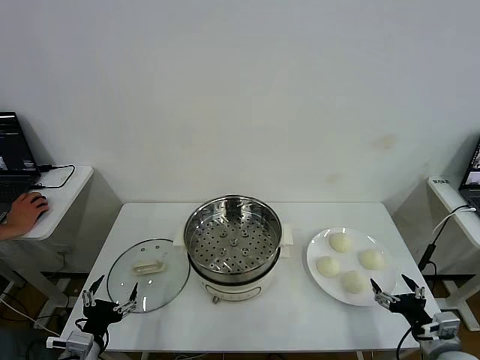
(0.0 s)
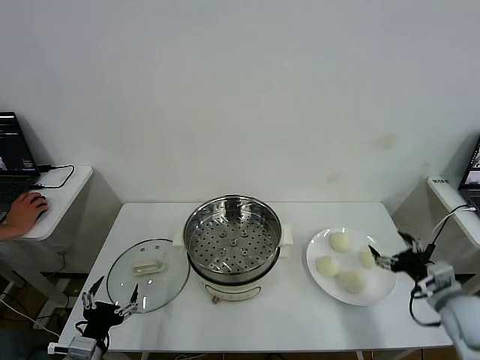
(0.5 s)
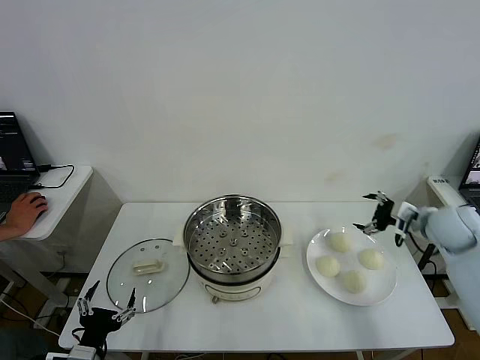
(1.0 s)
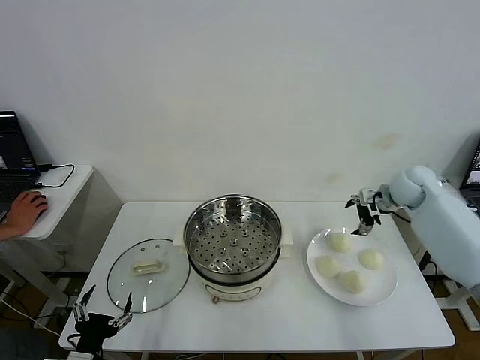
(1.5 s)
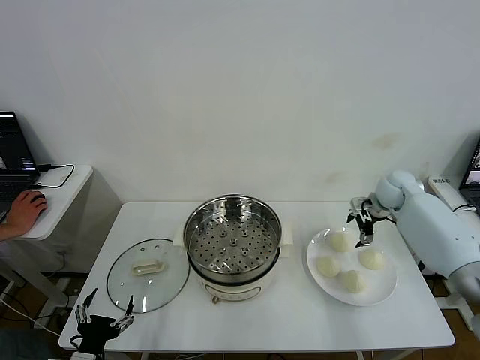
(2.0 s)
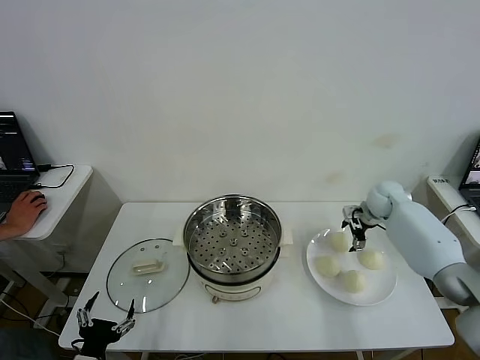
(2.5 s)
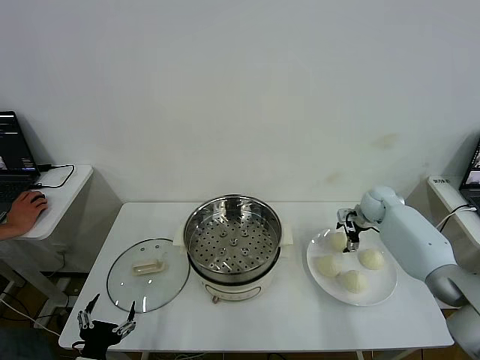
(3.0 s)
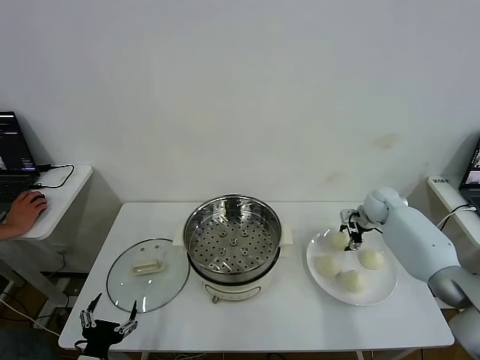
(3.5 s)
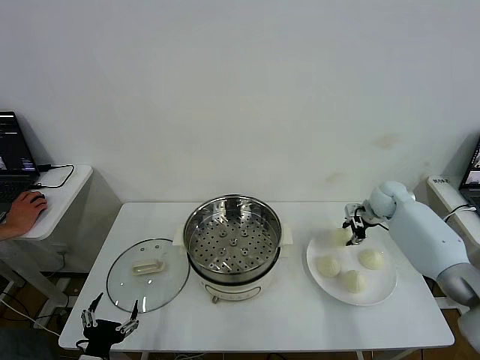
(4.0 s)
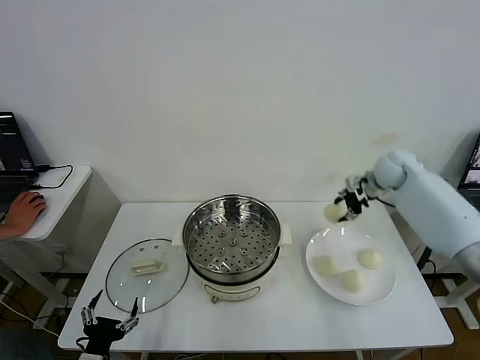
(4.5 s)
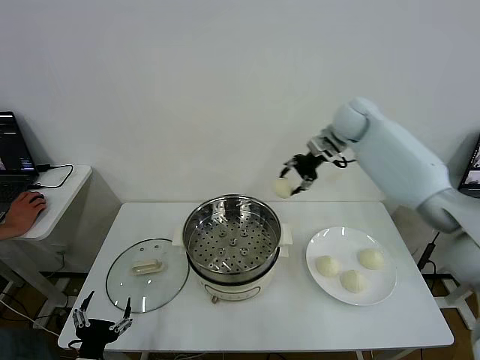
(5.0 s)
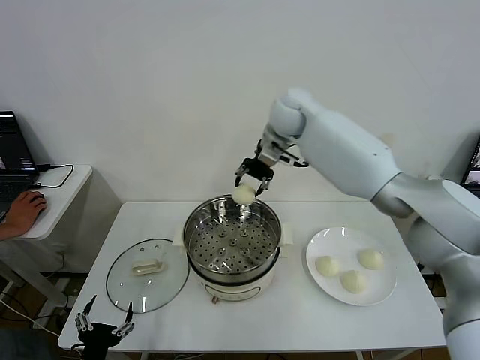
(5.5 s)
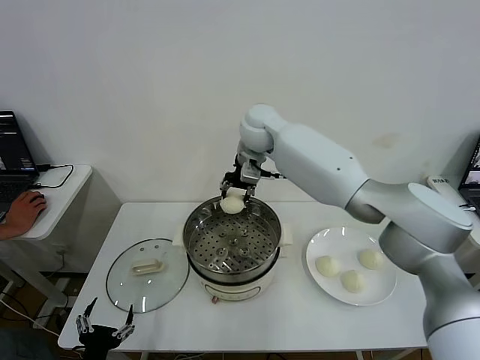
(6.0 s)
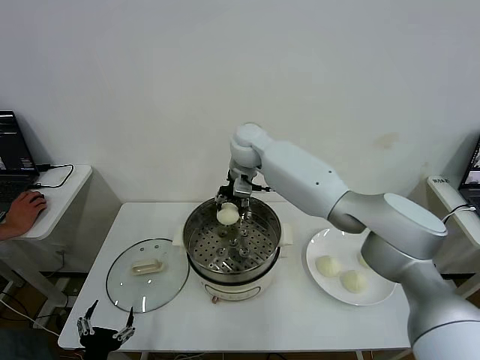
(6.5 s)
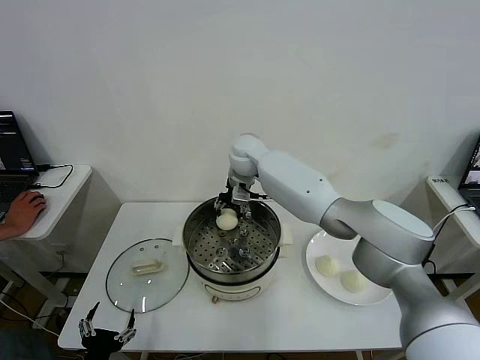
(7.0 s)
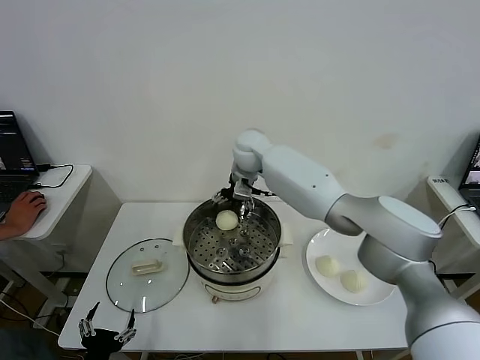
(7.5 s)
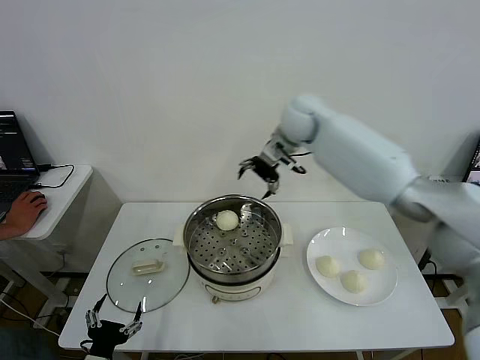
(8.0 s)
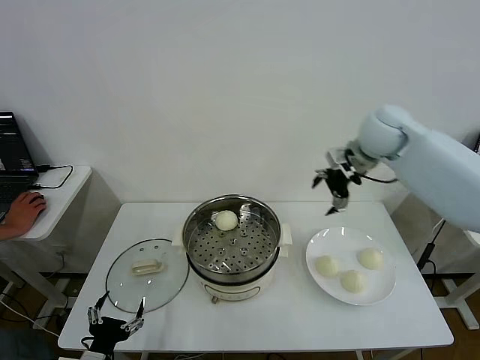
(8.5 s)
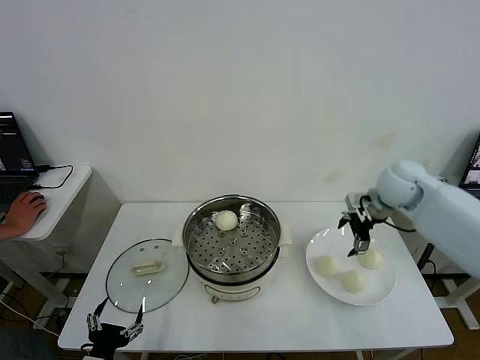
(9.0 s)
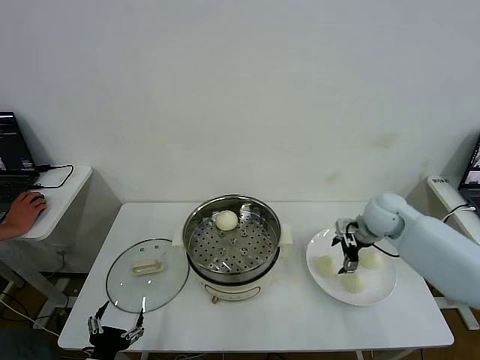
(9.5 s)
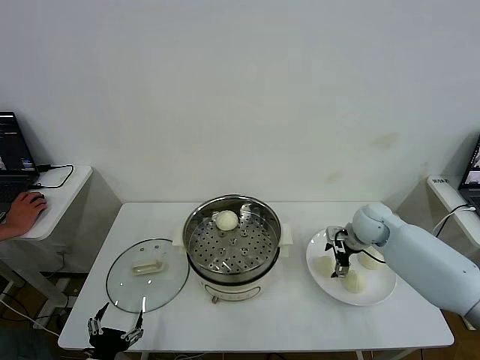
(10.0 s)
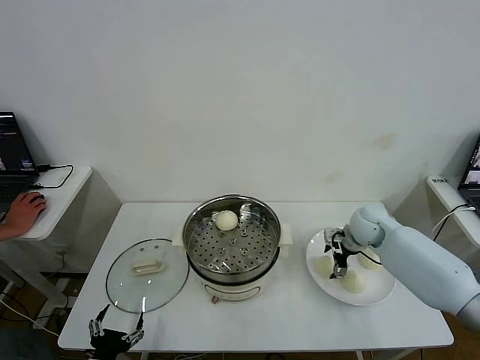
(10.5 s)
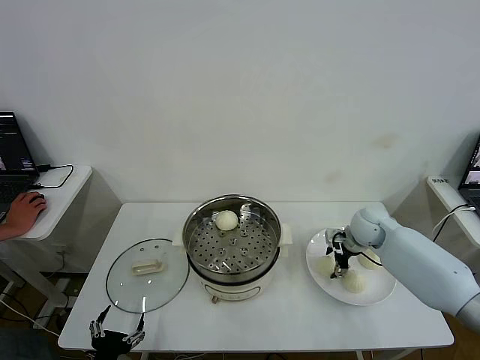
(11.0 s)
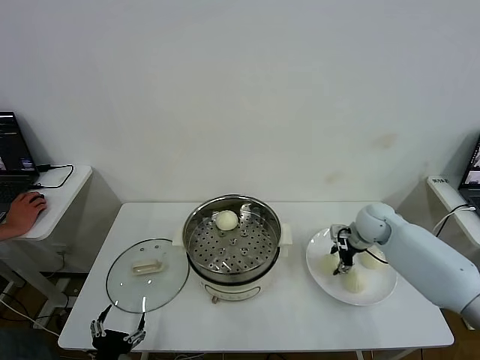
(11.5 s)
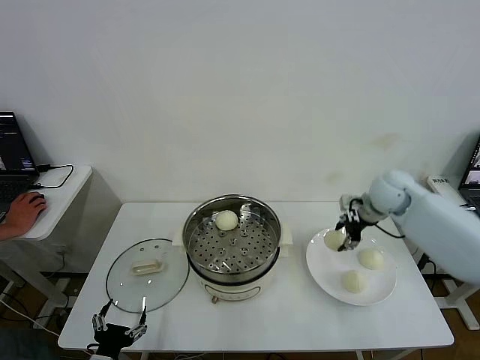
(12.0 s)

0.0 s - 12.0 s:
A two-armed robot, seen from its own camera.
Step, 0.0 s - 3.5 s: Grasp the baozi in the plate with right gripper.
Step, 4.0 s - 7.5 s: Place the baozi on the steamer with right gripper.
Step, 8.0 s - 11.0 s: Grasp the baozi in the plate with right gripper.
2.0 s - 4.0 s: The right gripper closes up.
4.0 s - 6.0 s: The right gripper shifts roughly 40 cm to the left and upward.
6.0 s - 8.0 s: The right gripper travels to the right by approximately 15 cm, and opens its fingers.
8.0 s - 10.0 s: The right gripper shifts approximately 30 cm downward, to the right and backward.
10.0 s - 12.0 s: The right gripper heads upward, covering some 10 cm, and closes its fingers.

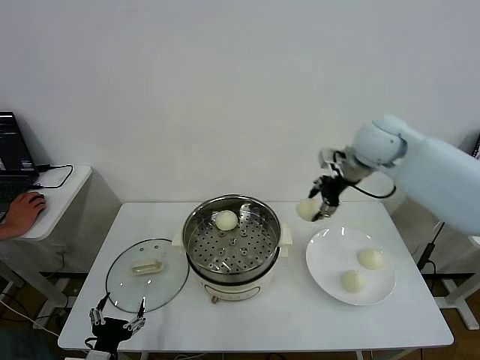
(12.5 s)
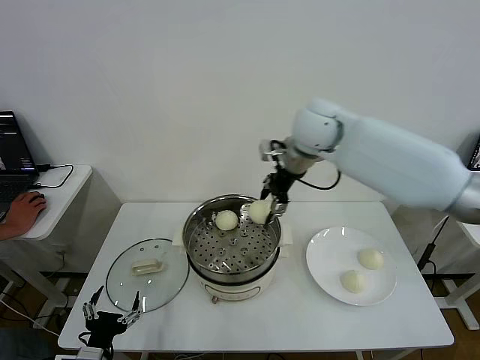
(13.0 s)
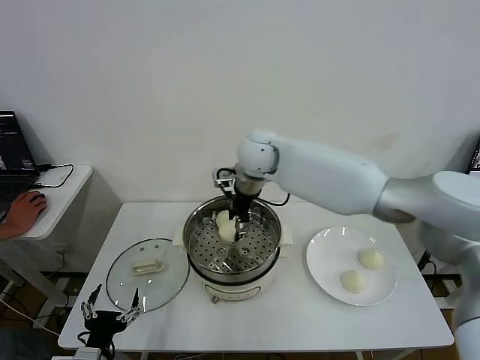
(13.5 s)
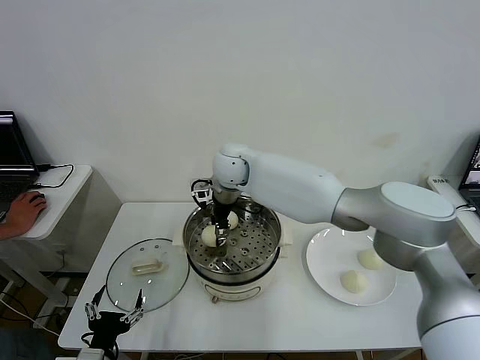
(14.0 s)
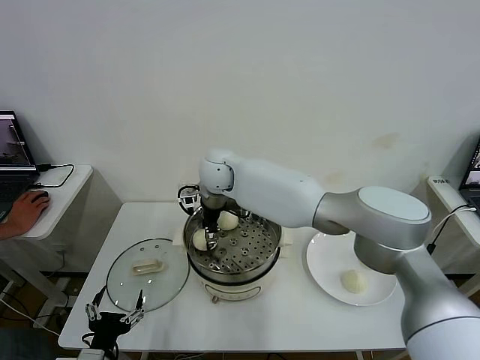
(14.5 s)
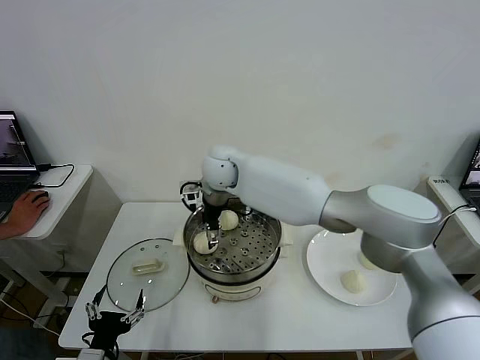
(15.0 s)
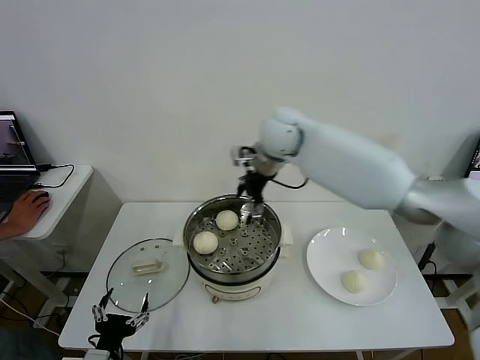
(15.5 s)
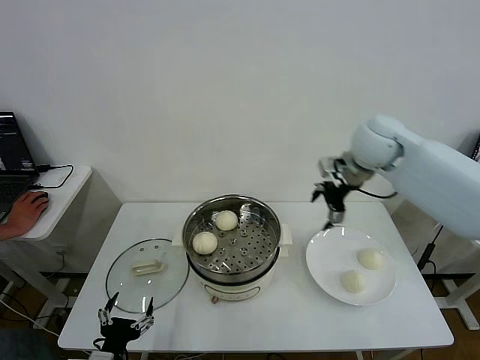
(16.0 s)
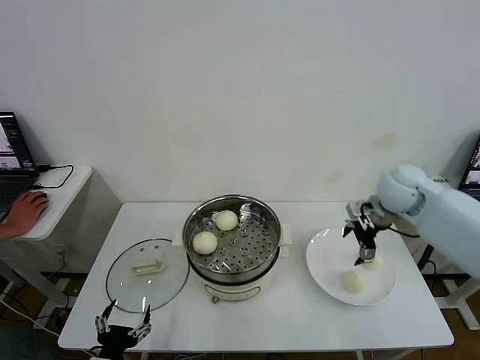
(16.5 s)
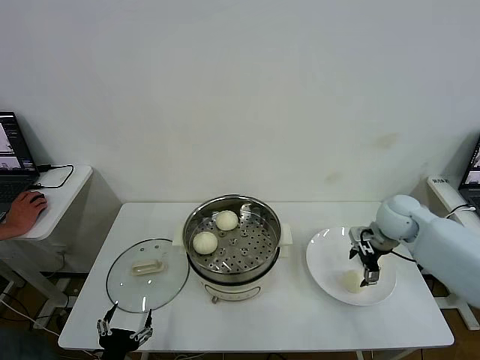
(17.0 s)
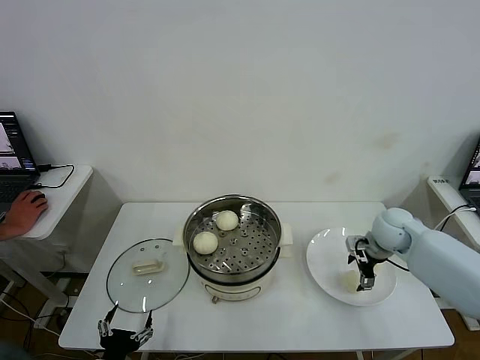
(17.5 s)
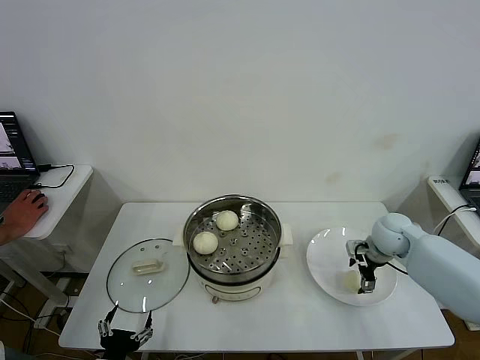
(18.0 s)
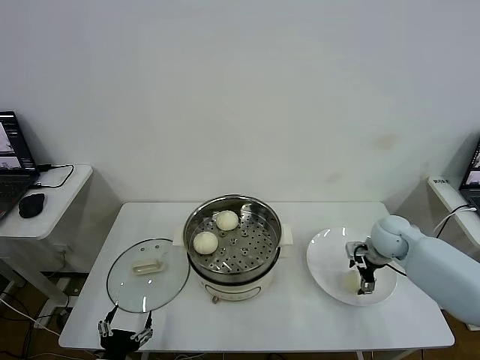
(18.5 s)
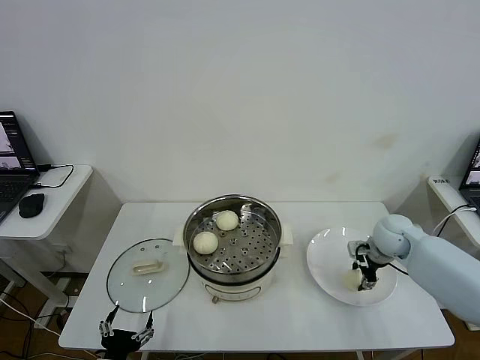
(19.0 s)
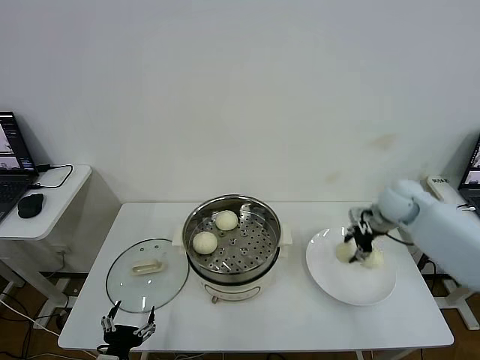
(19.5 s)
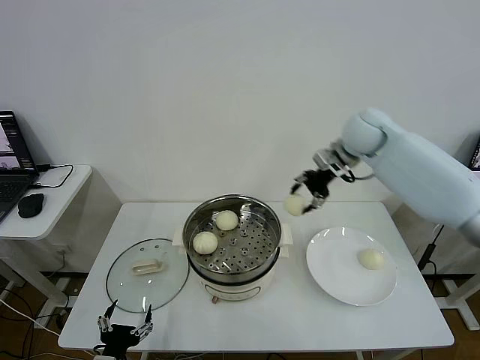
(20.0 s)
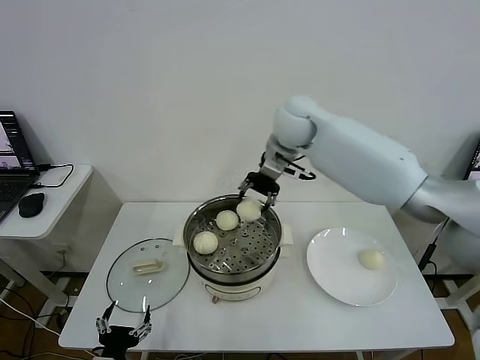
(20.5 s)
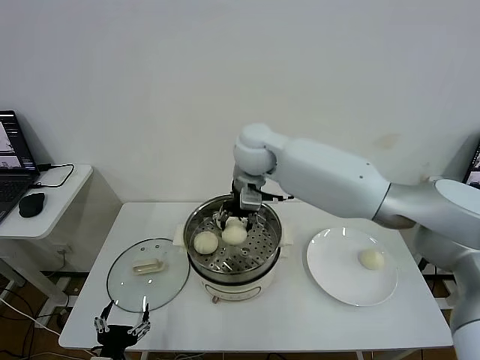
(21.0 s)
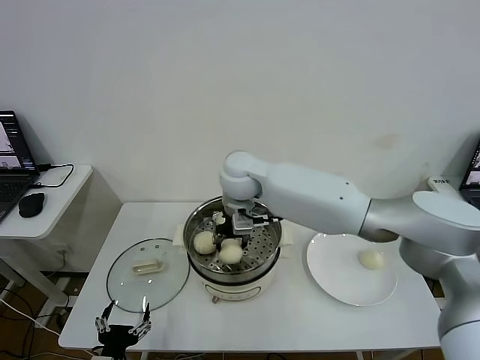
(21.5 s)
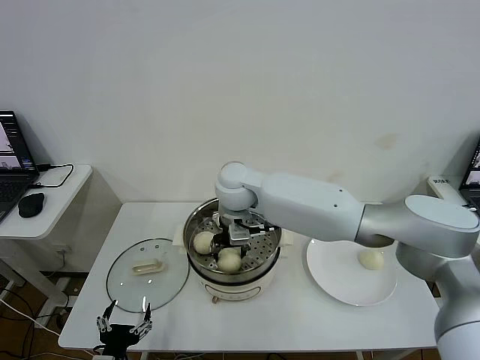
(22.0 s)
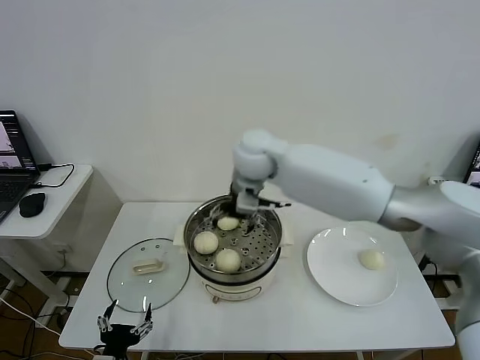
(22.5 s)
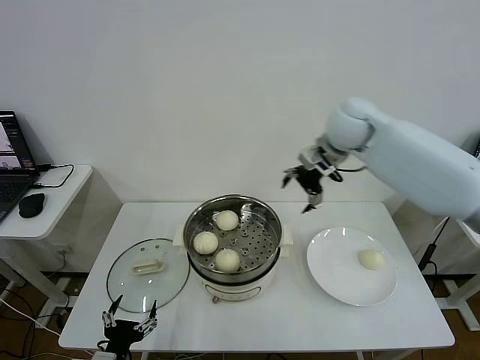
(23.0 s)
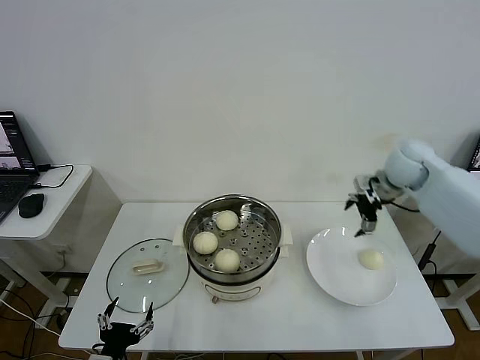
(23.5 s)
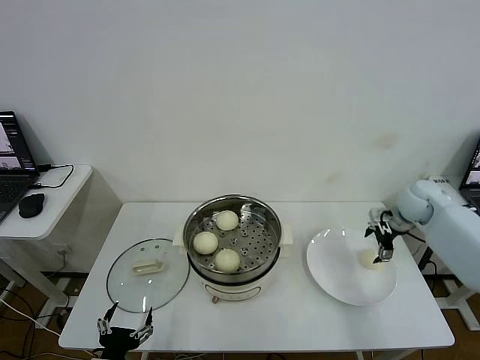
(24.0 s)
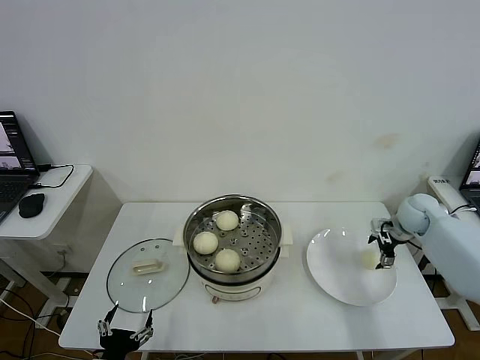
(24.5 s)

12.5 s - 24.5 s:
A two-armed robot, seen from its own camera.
Step, 12.5 s - 15.0 s: Place the baozi on the steamer with right gripper.
Step, 15.5 s - 18.5 s: Grasp the baozi in the plate with right gripper.
Step, 19.0 s - 22.0 s: Place the baozi on the steamer with right gripper.
12.5 s - 14.5 s: The right gripper travels to the left by approximately 30 cm.
14.5 s - 16.5 s: The right gripper is displaced to the right by roughly 40 cm, and opens up.
16.5 s - 18.5 s: The right gripper travels downward by approximately 15 cm.
18.5 s - 20.5 s: The right gripper moves to the left and upward, some 35 cm, and closes its fingers.
20.5 s - 22.5 s: The right gripper goes some 5 cm to the left, and opens up.
22.5 s - 24.5 s: The right gripper goes about 50 cm to the right and downward.

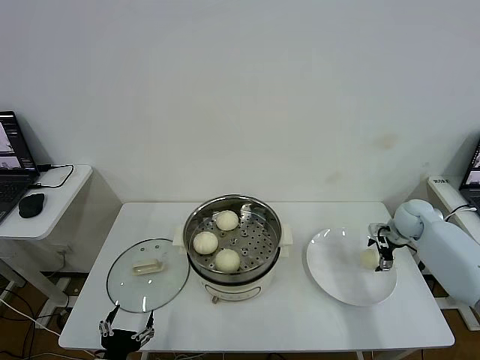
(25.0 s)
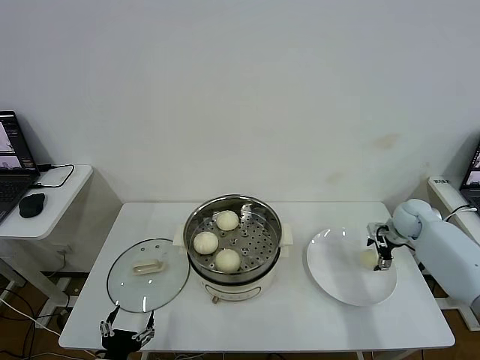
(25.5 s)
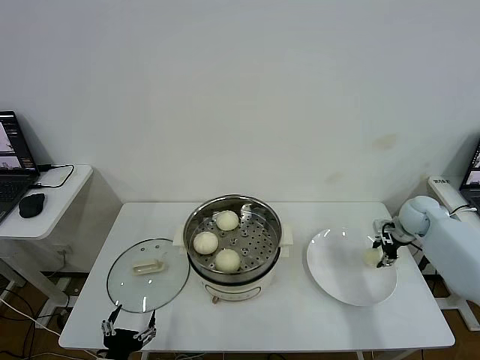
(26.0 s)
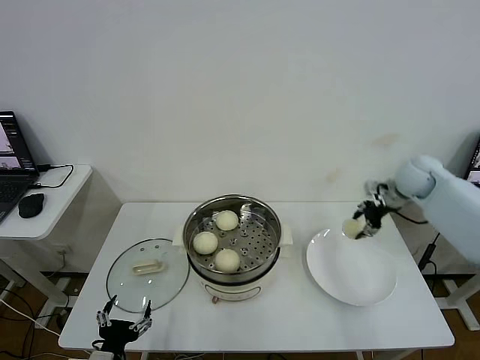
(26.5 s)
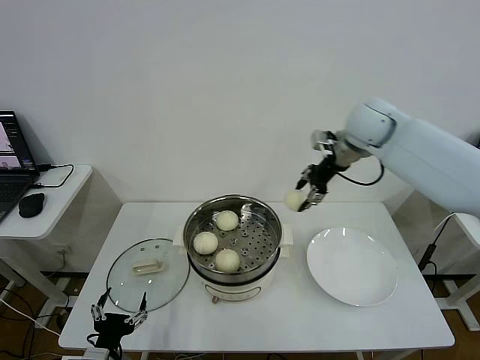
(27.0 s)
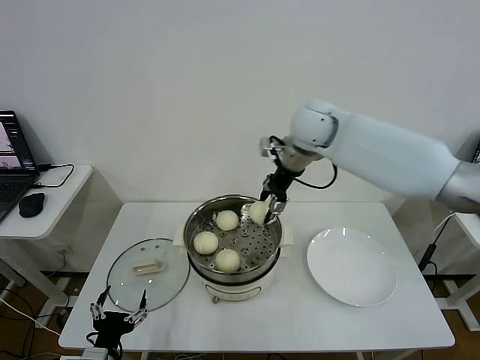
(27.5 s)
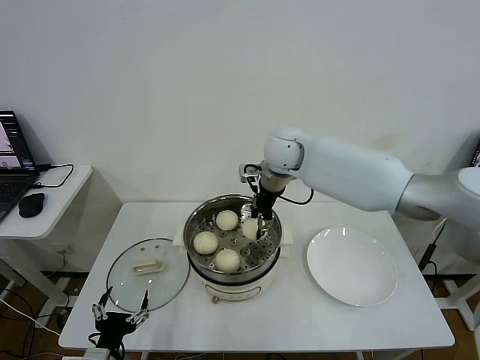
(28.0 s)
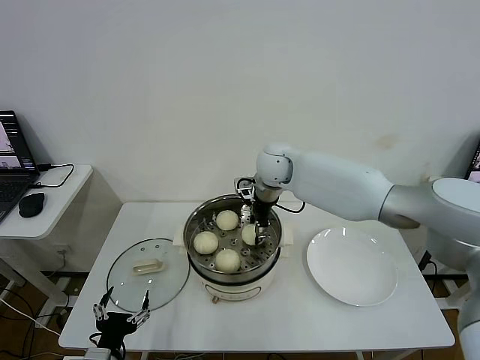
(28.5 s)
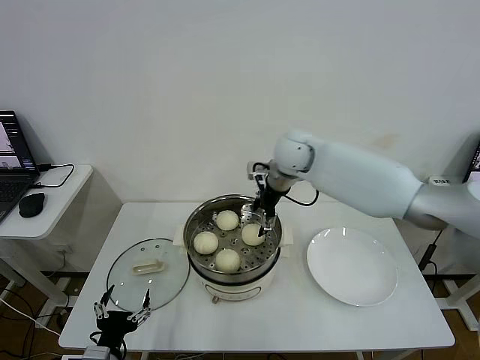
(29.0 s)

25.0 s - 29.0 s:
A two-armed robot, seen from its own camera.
Step, 26.0 s - 28.5 s: Place the baozi on the steamer with right gripper.
25.0 s - 27.0 s: The right gripper travels upward and to the left by some 30 cm, and closes its fingers.
27.0 s - 29.0 s: The right gripper heads to the left and downward, covering about 15 cm, and opens.
